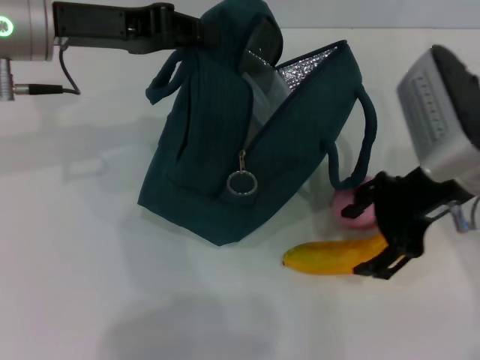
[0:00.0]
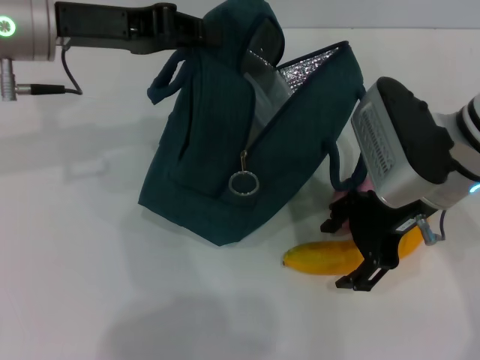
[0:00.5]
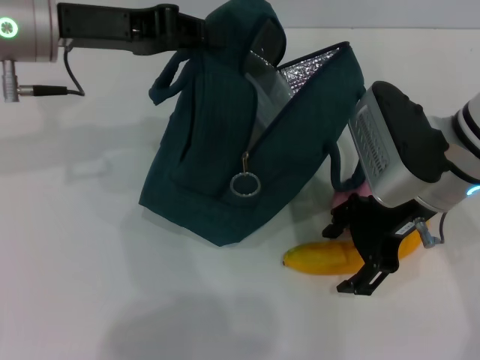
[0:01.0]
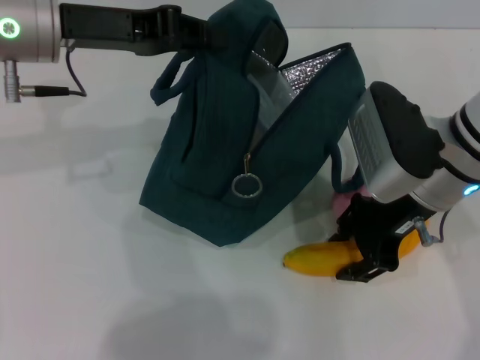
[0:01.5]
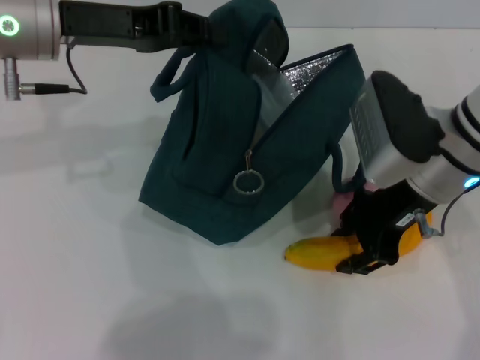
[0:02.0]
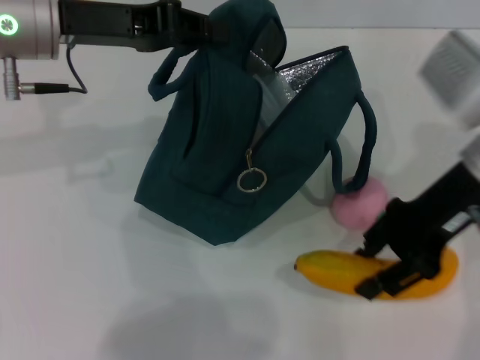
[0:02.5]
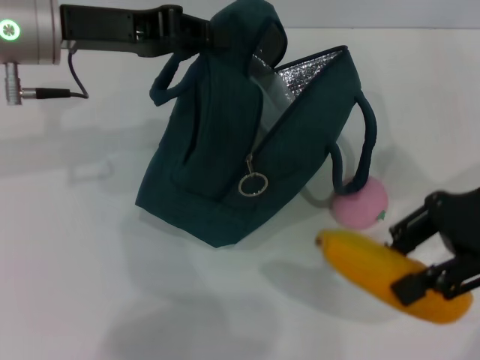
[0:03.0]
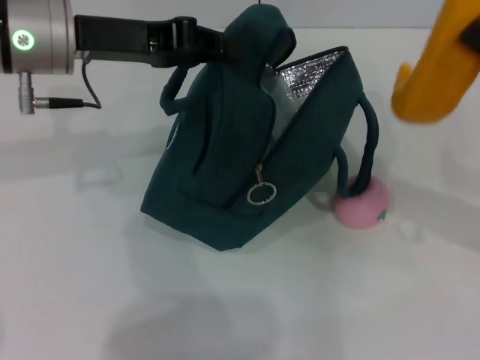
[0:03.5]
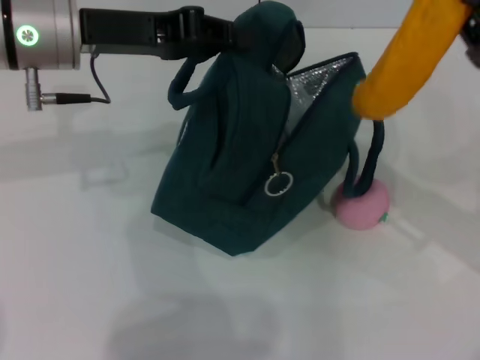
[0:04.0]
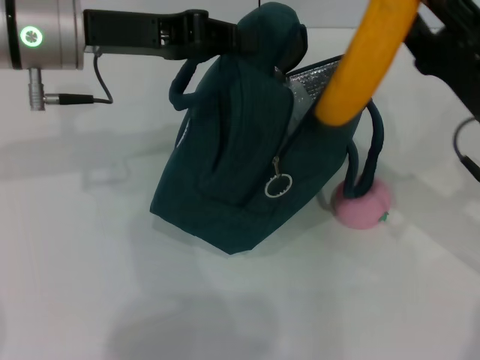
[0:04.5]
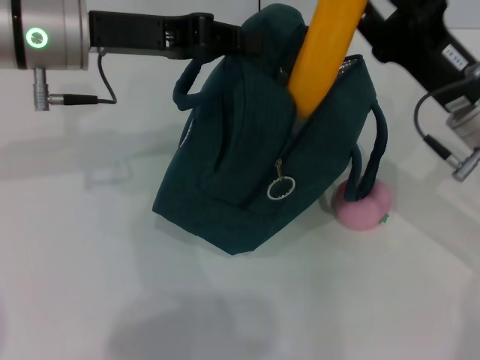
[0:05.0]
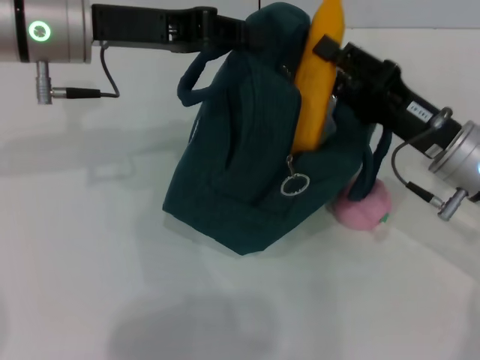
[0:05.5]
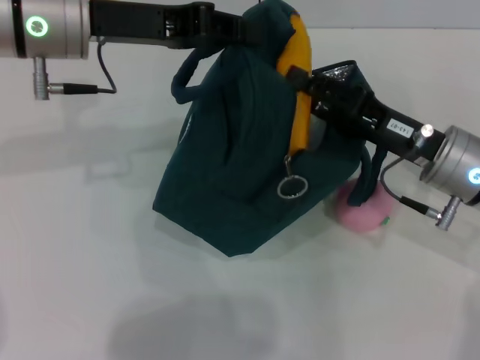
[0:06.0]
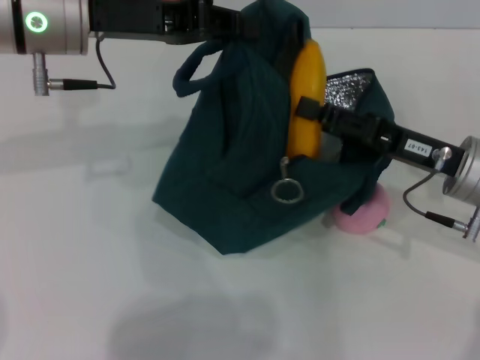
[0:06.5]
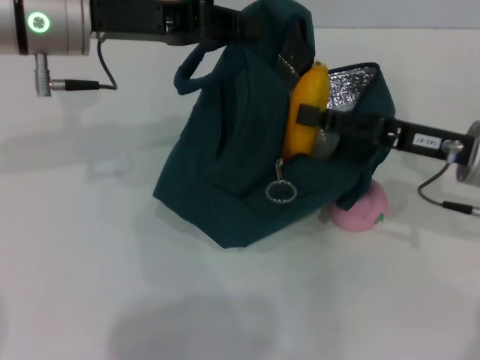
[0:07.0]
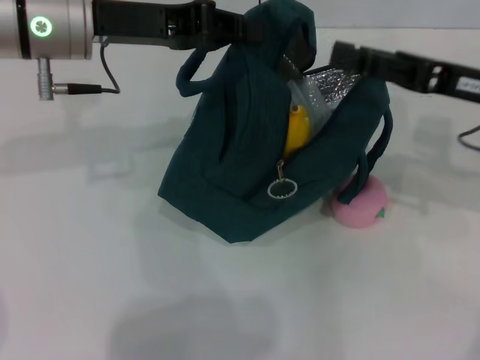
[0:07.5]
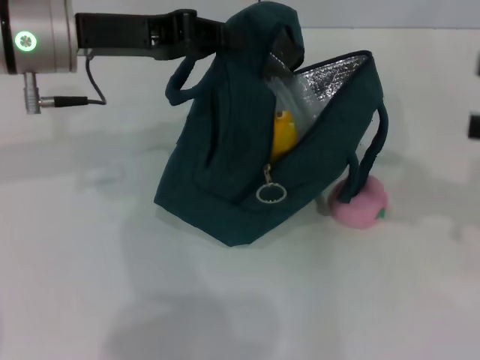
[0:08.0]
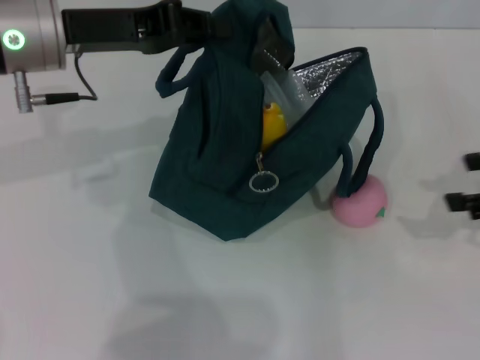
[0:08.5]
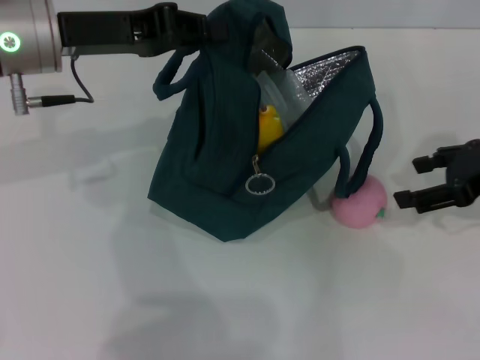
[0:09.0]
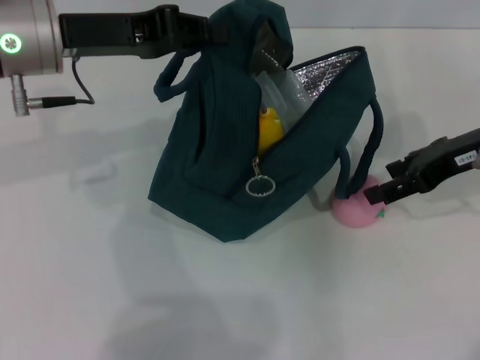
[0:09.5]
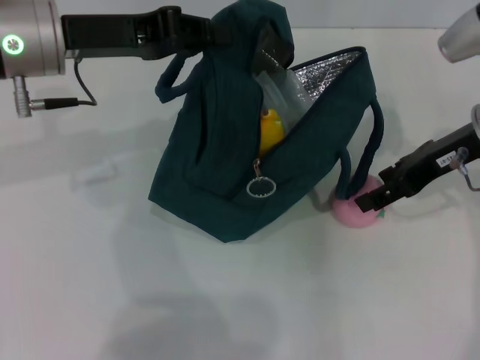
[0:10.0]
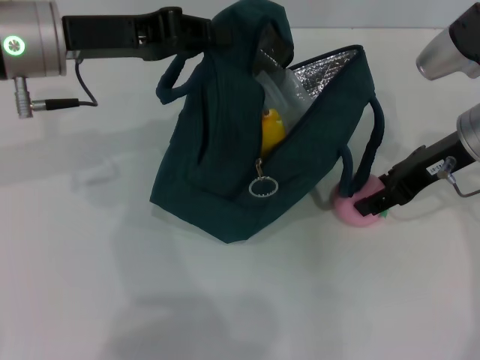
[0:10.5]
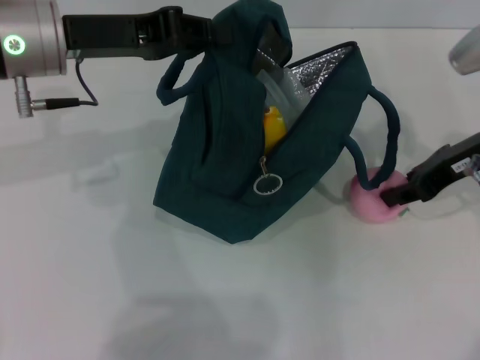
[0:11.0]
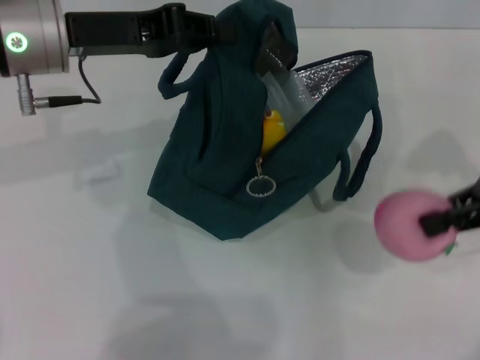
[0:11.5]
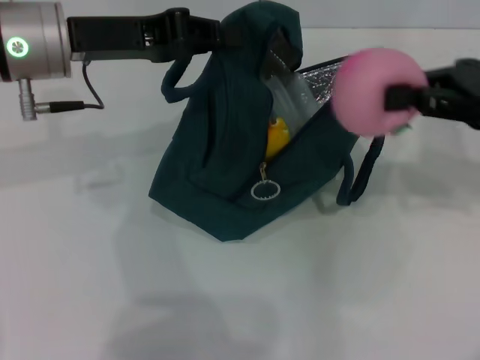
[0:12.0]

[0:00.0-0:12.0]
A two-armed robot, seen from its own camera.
Step, 0:02.0 to 0:07.0: Put the banana into the lunch bag with your right hand.
Step, 0:07.5 to 0:10.5: Grab the peach with your right hand.
0:00.0 to 0:02.0: The right gripper closes up.
0:02.0 to 0:04.0: The right gripper is displaced to the right and backward by approximately 10 cm.
0:04.0 to 0:06.0: The right gripper shifts about 5 cm to the left.
0:06.0 to 0:08.0: The right gripper travels to the right and upward by approximately 20 cm, and opens up.
0:08.0 to 0:10.0: The right gripper shifts about 15 cm to the left, forward and downward.
0:10.0 to 0:12.0: The right gripper heads to the right, covering approximately 5 cm, and closes.

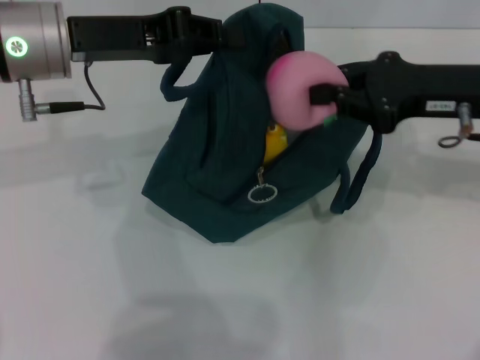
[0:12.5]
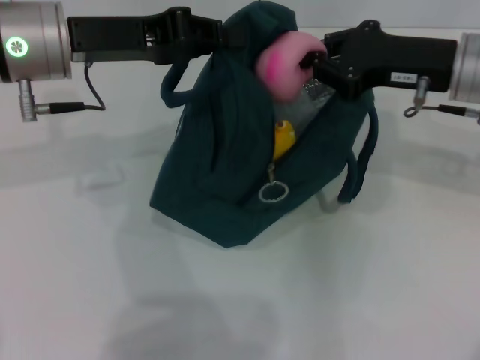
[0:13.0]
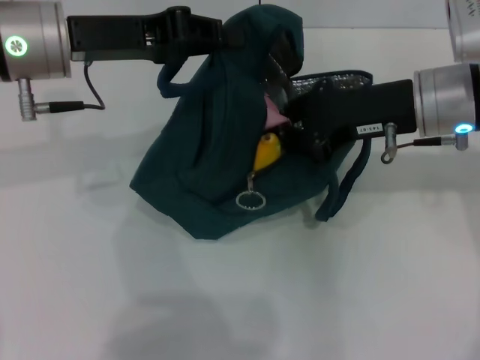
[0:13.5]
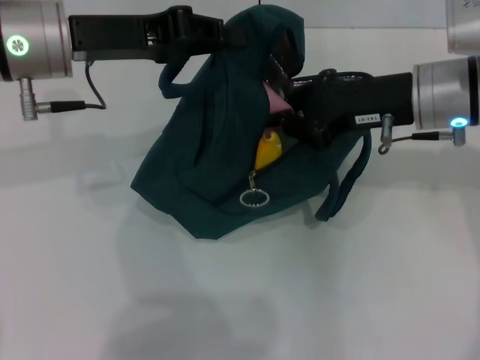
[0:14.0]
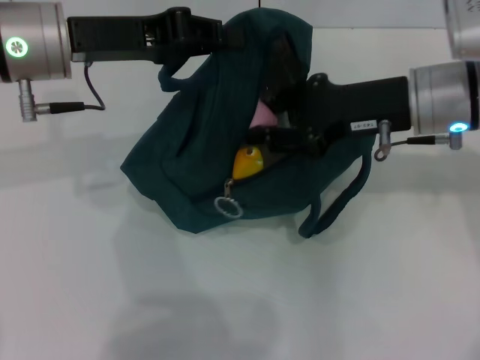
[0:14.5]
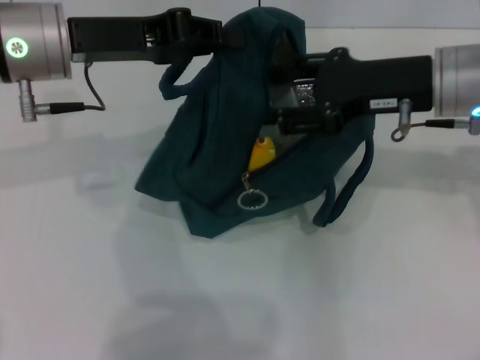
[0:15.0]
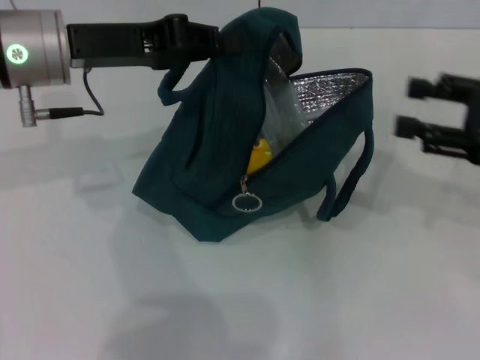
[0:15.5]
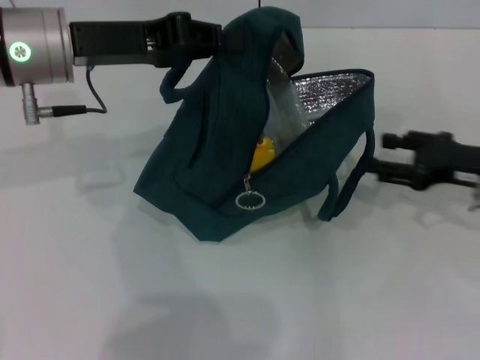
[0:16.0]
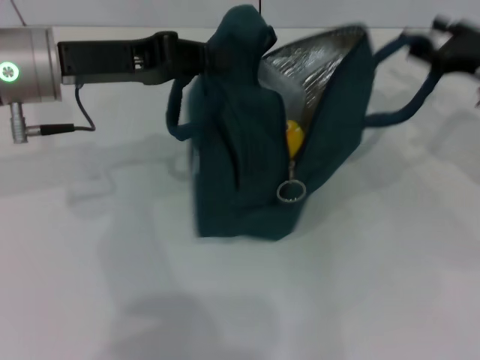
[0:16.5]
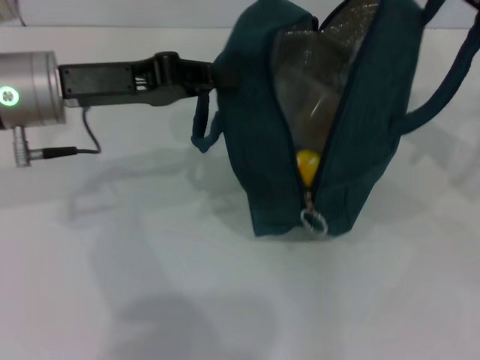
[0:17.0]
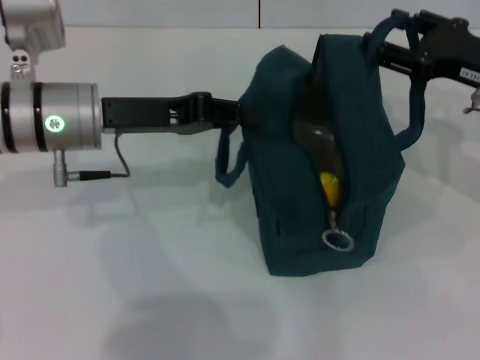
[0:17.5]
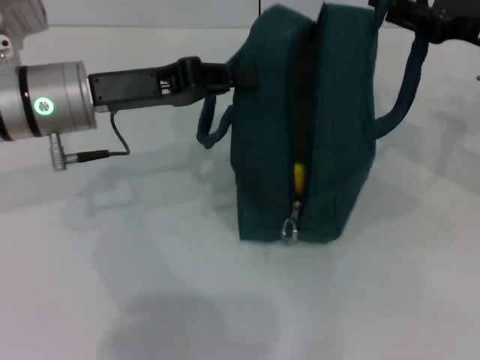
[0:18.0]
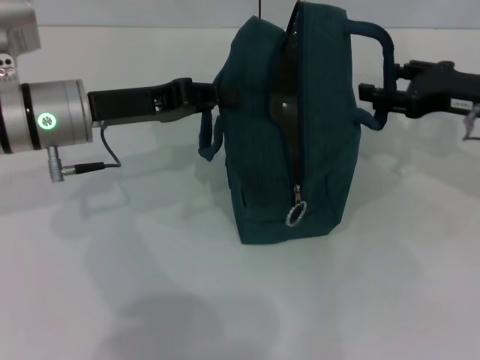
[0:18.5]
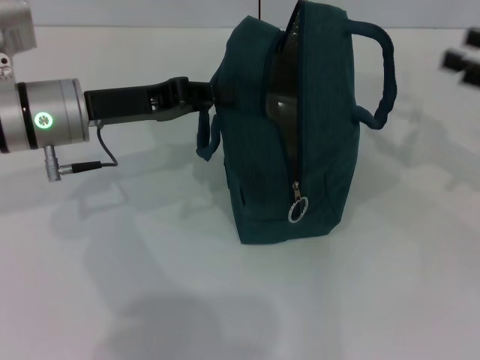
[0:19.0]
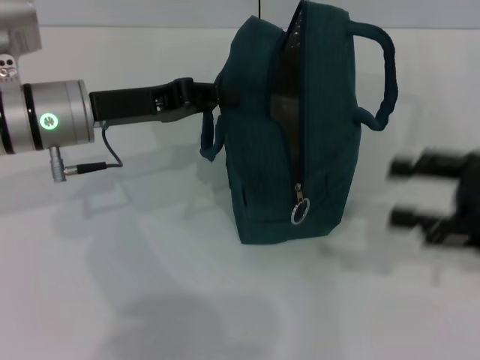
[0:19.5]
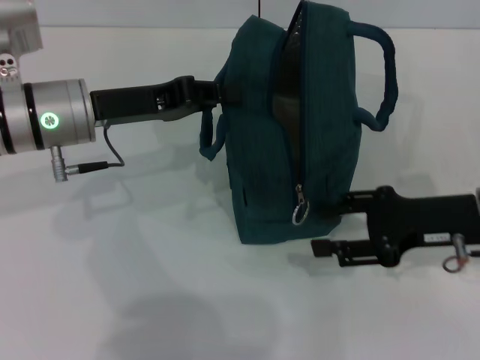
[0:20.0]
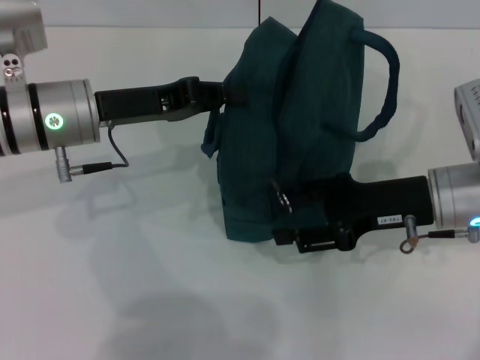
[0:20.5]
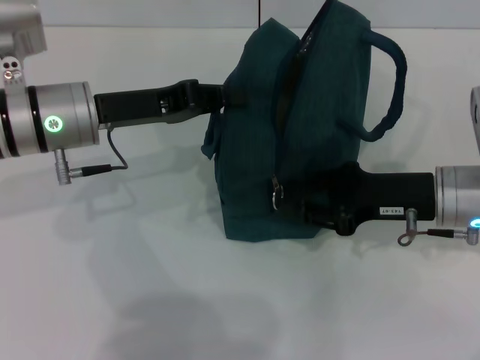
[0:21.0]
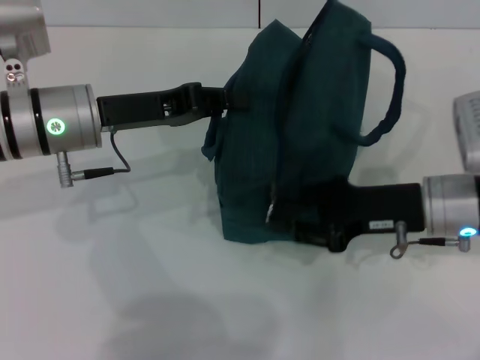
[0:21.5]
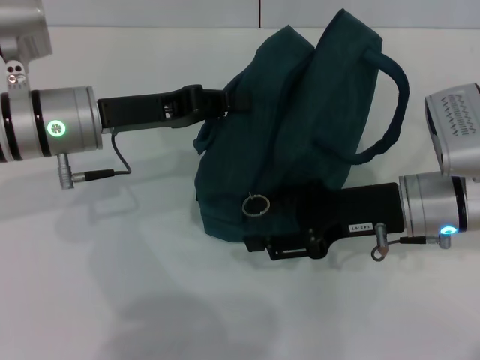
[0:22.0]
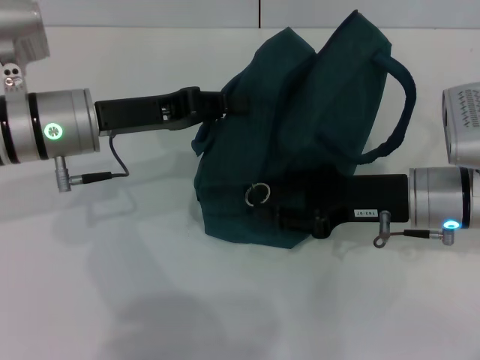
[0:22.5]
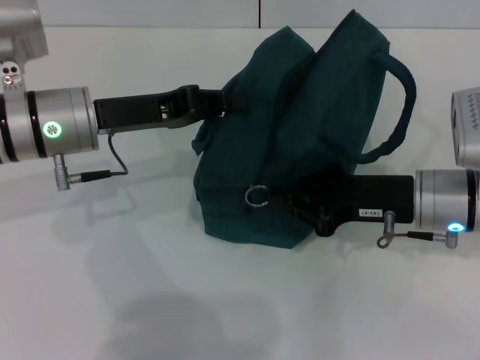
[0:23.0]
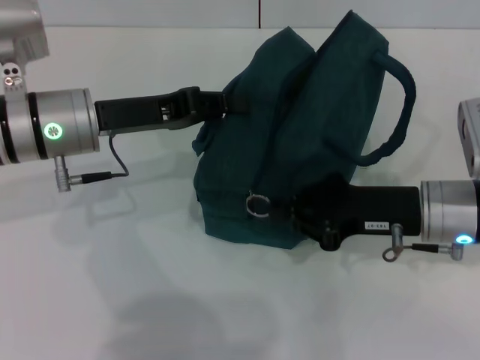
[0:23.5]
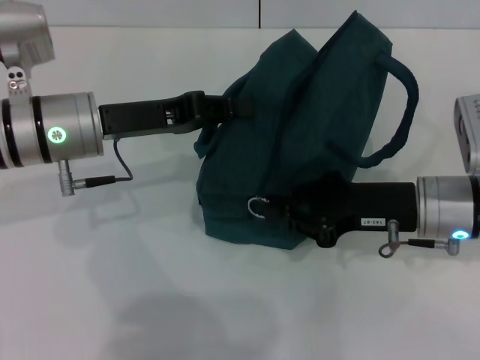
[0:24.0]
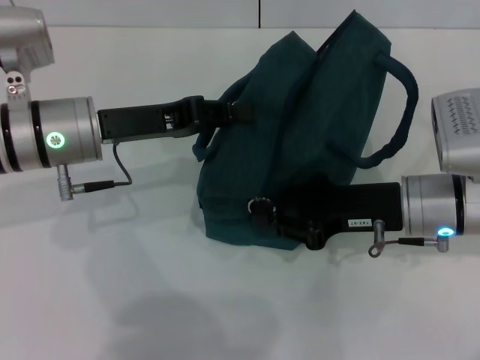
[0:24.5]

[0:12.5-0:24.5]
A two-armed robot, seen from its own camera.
Step, 0:15.0 to 0:18.5: Hold the lunch bag with your right hand.
0:12.5 to 0:14.5: The right gripper goes some 5 cm to the left.
0:14.5 to 0:16.5: The right gripper is displaced to the right and downward by some 15 cm, and opens.
0:16.5 to 0:18.5: The left gripper moves downward, roughly 5 cm.
0:18.5 to 0:20.5: The right gripper heads to the left and backward, covering some 10 cm.
0:20.5 to 0:22.5: The right gripper closes, then reopens.
0:22.5 to 0:24.5: The right gripper closes up.

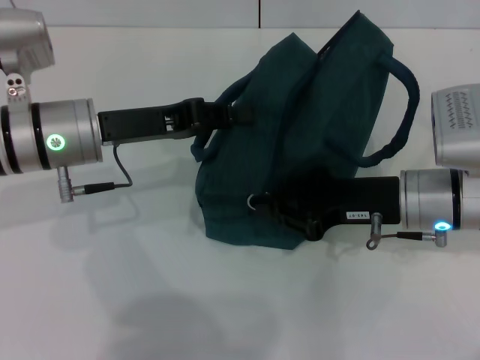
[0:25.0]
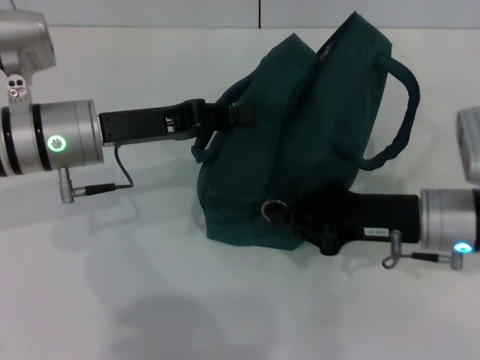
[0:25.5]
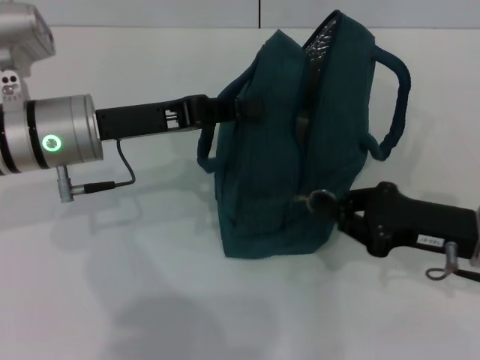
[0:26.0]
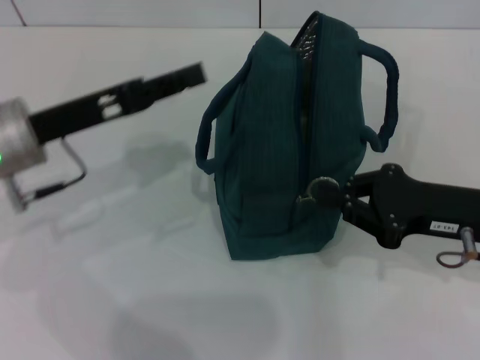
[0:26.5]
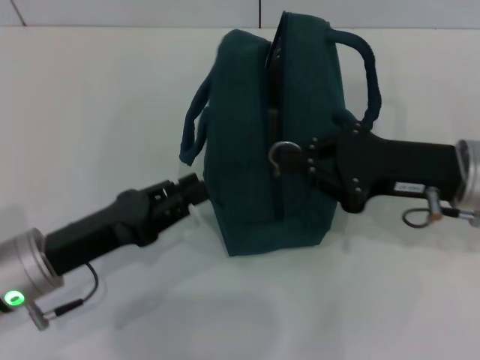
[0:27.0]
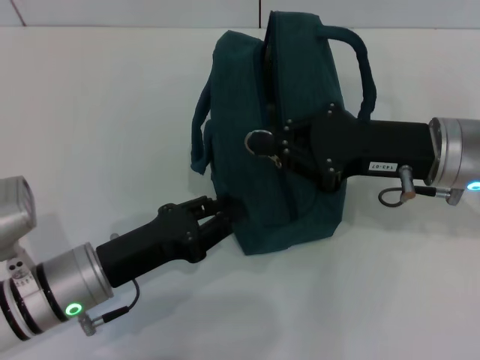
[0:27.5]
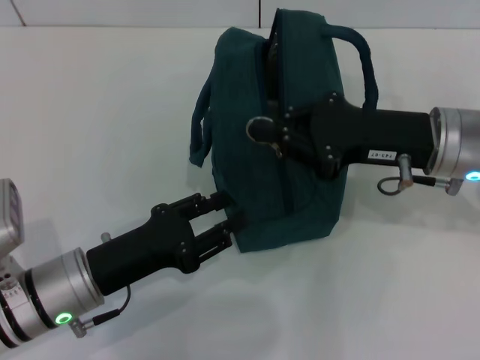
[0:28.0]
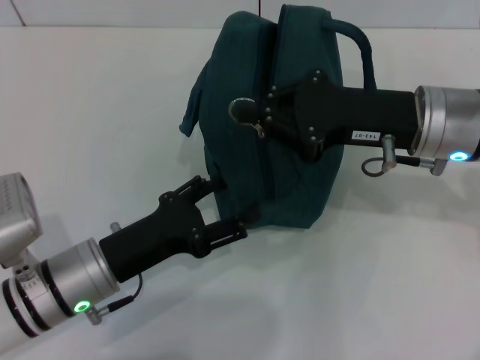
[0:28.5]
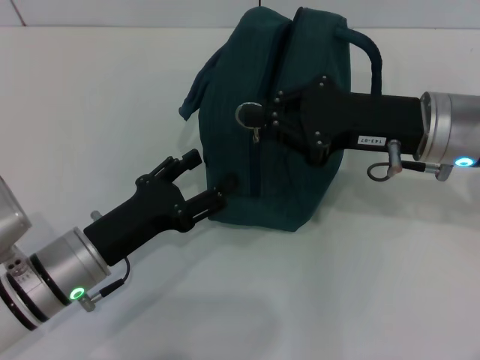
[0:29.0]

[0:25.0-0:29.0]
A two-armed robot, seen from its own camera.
0:25.0 to 0:27.0: The right gripper moves some 5 cm. The left gripper is displaced backward and downward by roughly 15 cm.
0:27.0 to 0:29.0: The left gripper opens.
